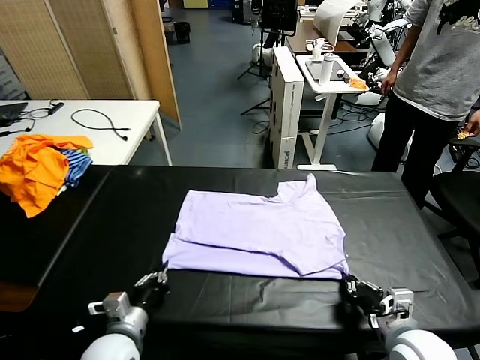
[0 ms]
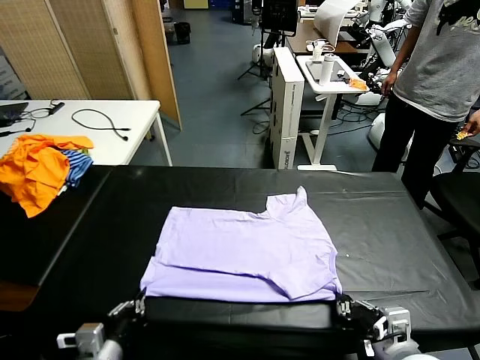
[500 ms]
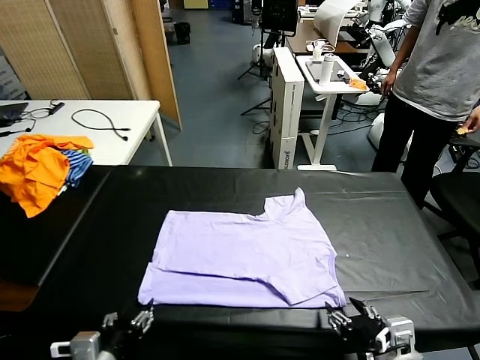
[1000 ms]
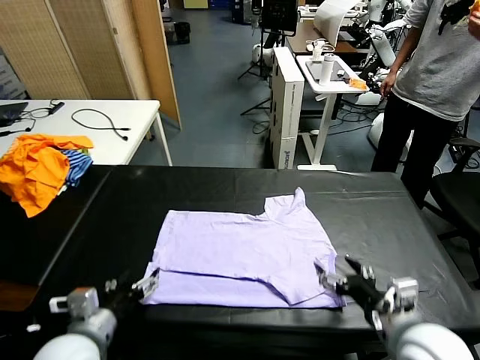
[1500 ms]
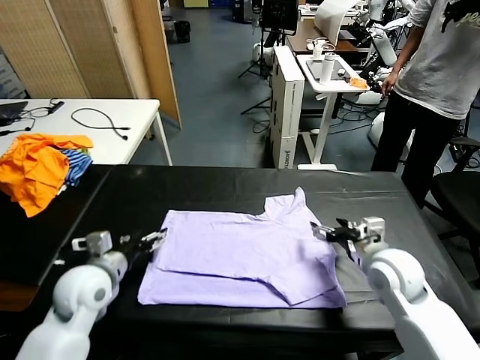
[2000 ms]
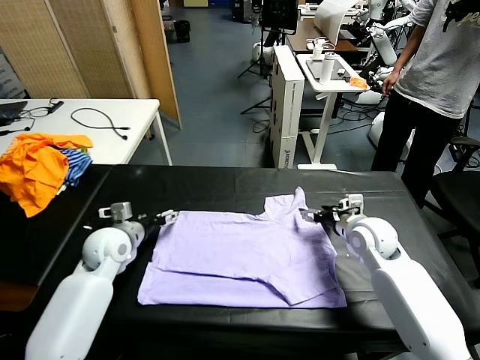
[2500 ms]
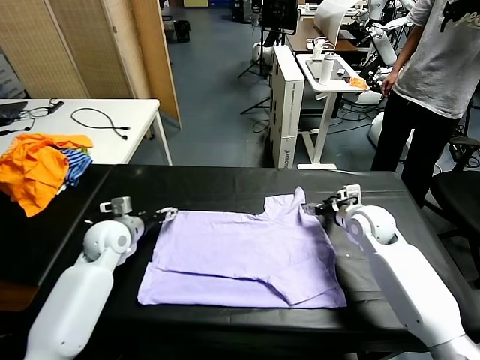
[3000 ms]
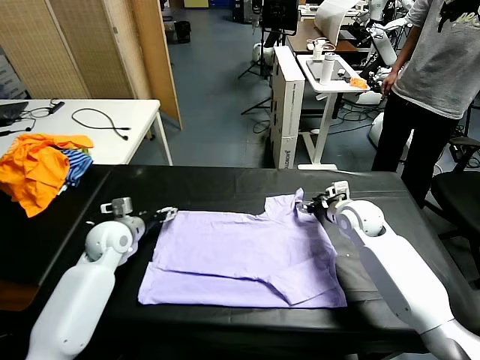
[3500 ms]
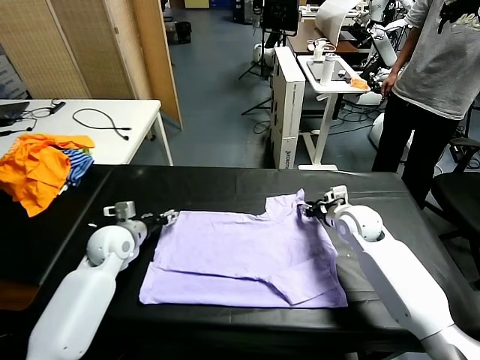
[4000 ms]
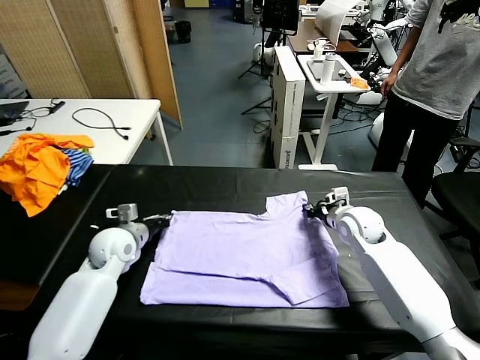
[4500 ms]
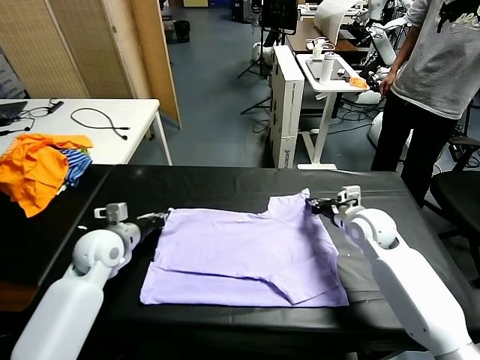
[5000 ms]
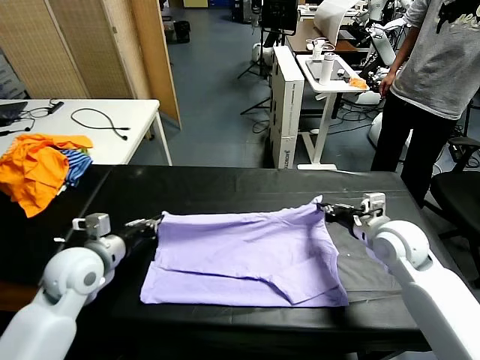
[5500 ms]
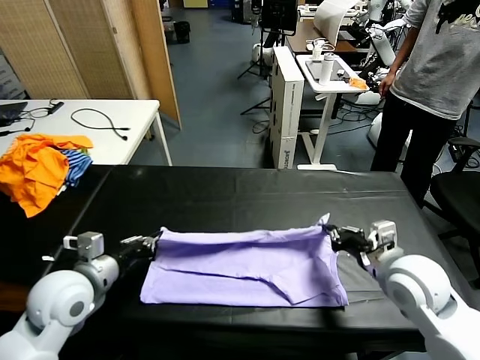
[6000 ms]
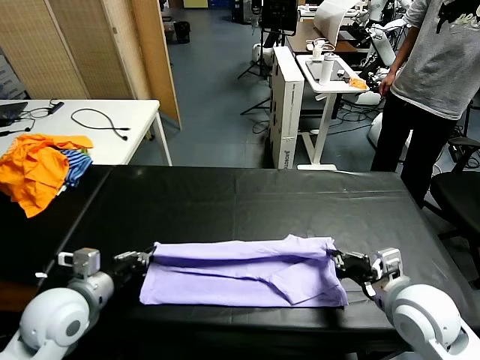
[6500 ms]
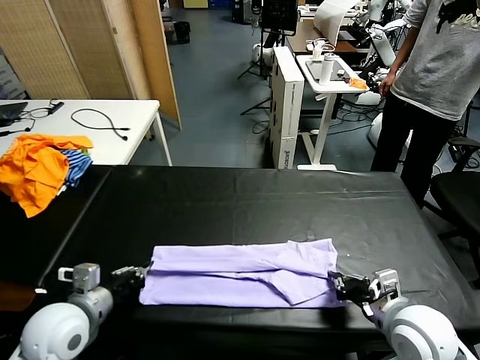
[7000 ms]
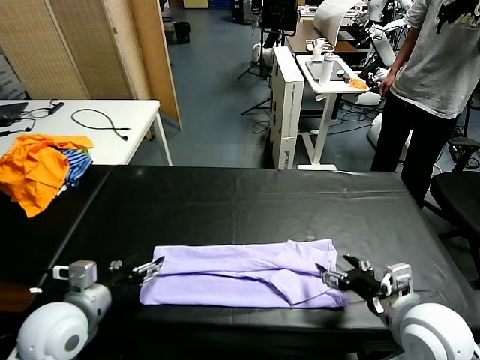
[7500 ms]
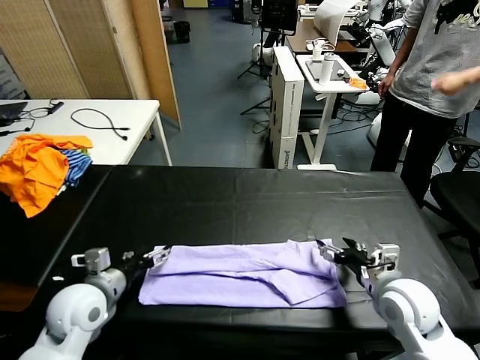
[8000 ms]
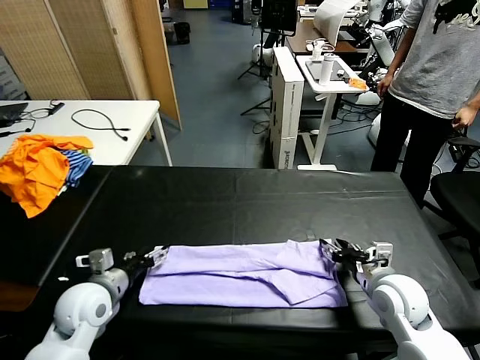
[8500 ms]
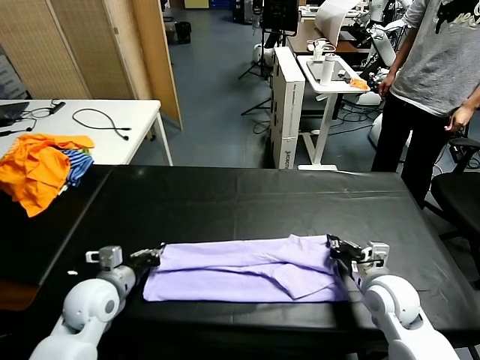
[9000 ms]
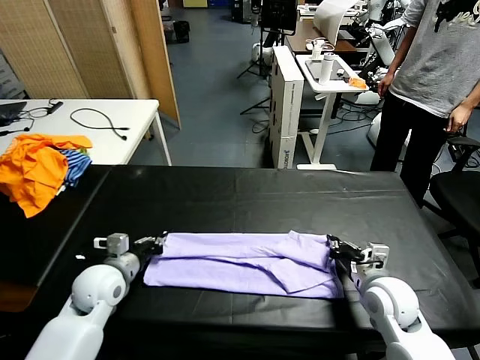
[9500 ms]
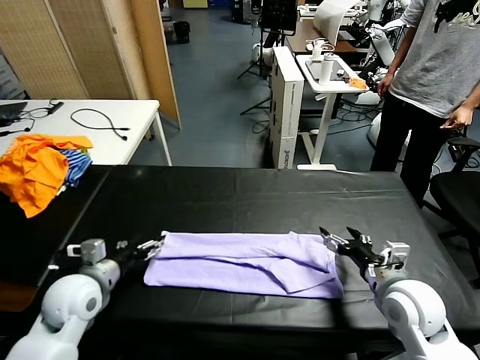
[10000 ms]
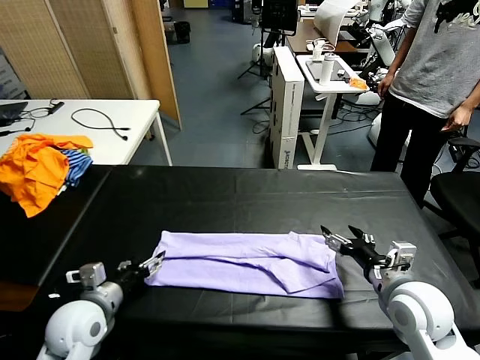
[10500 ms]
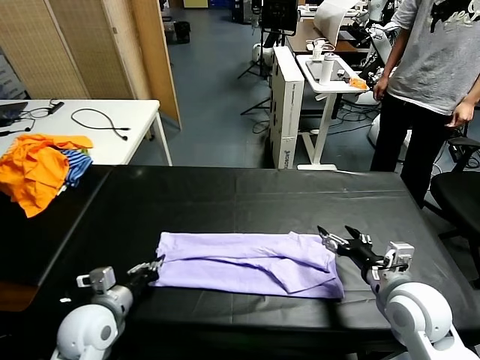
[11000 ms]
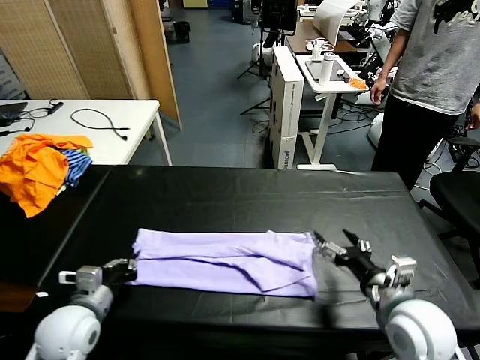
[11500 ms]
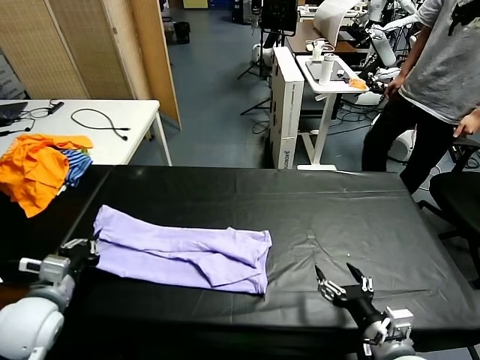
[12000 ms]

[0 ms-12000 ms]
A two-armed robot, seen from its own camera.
Task of the whole recording: fold and organize the clothes.
Step, 1500 ms to 4000 ms: use both grippers simultaneously to clamp the upper edge of the clothing fabric.
Step, 5000 ms to 10000 ms: use both grippers to drag the upper edge of the fabric backward and fold it over the lower edge.
Step, 10500 ms to 11000 ms: use the left gripper to clamp the left edge of the fabric.
0 ms to 2000 ms: The left gripper goes roughly 15 cm forward, upward and to the left, and opens its fingers, while the right gripper is displaced forward by some 20 cm, and opens its fingers.
2000 ms to 4000 ms: Both grippers move forward, about 10 cm. The right gripper closes its fingers, while the left gripper closes.
4000 ms to 6000 ms: The right gripper heads backward, covering some 20 cm. The left gripper moves backward and upward, roughly 15 cm, and closes.
6000 ms to 8000 ms: The grippers both shift downward by some 5 cm. The right gripper opens its fingers. Meanwhile the left gripper opens its fingers.
8000 ms to 10000 ms: The left gripper closes and opens again. The right gripper closes, then reopens.
10000 ms to 12000 ms: The right gripper shifts approximately 10 cm backward. Meanwhile the left gripper moves backward, roughly 5 cm, and closes.

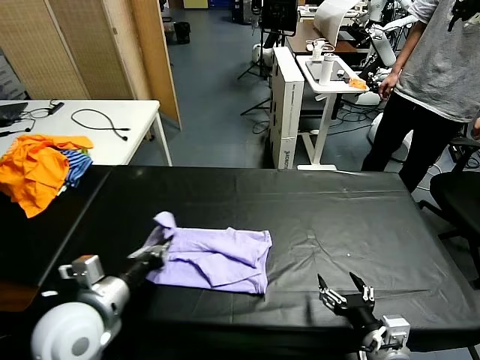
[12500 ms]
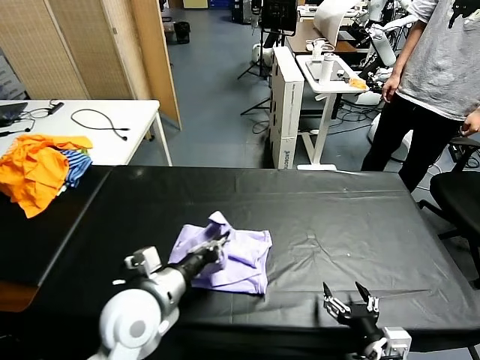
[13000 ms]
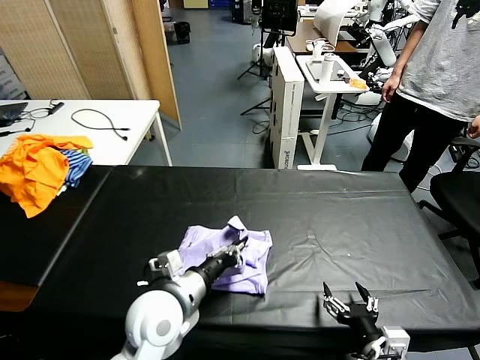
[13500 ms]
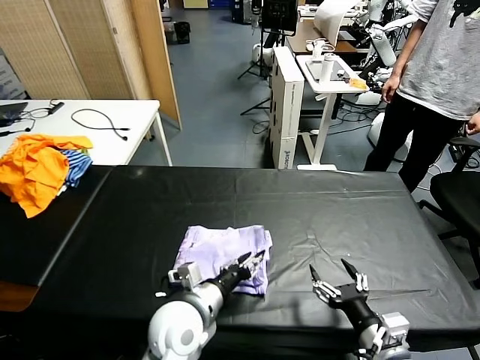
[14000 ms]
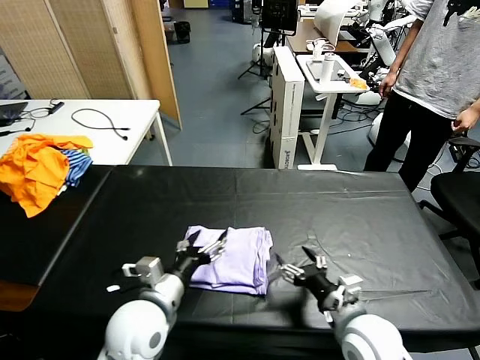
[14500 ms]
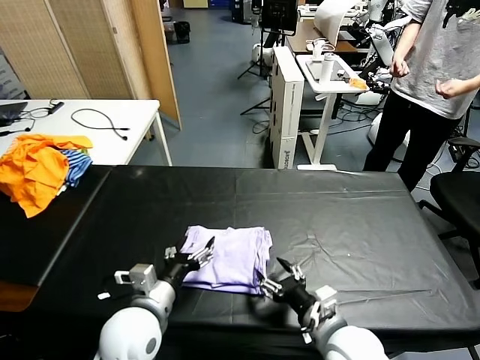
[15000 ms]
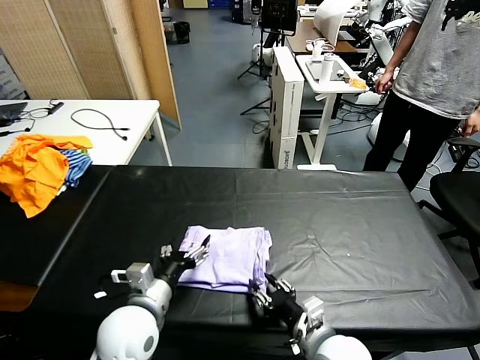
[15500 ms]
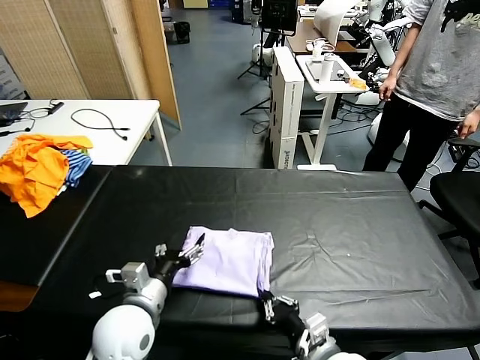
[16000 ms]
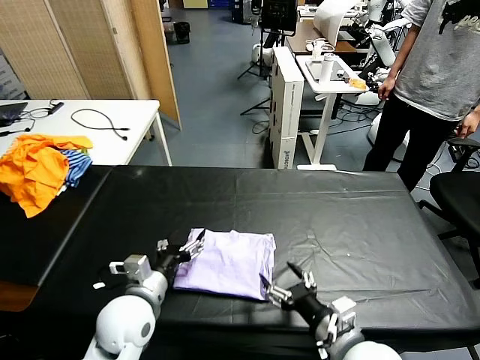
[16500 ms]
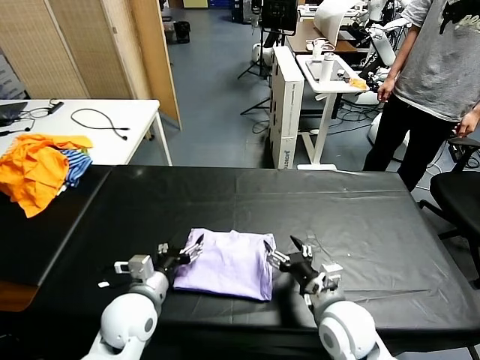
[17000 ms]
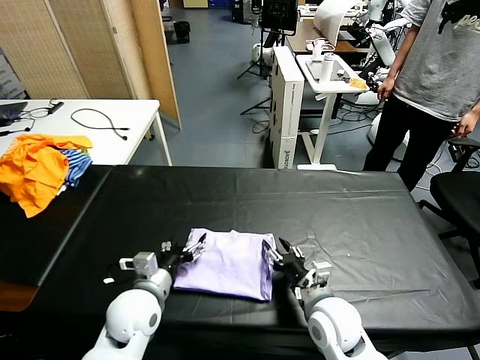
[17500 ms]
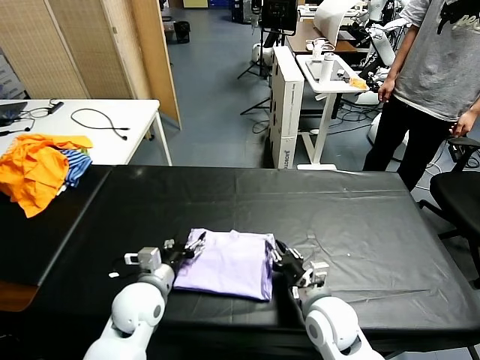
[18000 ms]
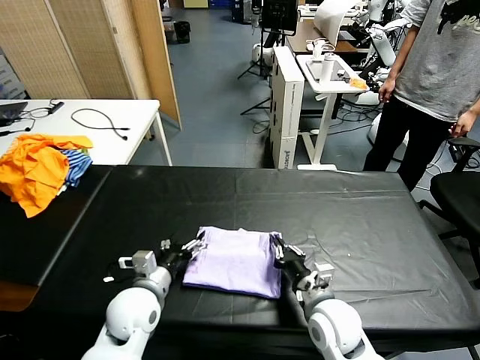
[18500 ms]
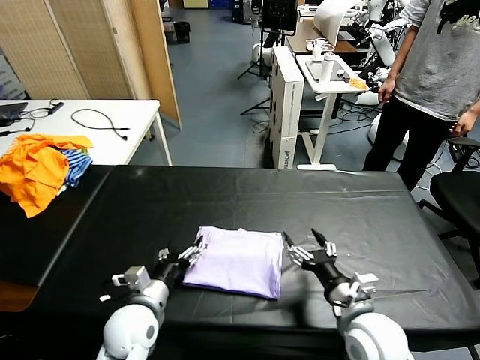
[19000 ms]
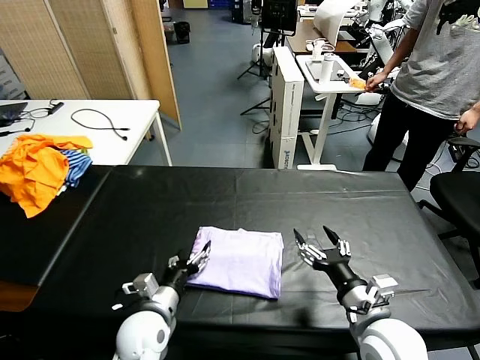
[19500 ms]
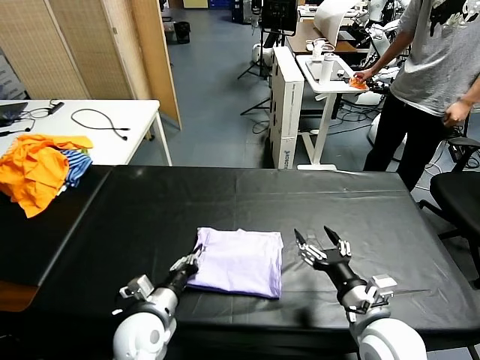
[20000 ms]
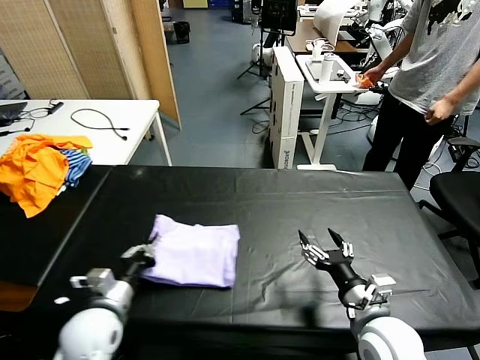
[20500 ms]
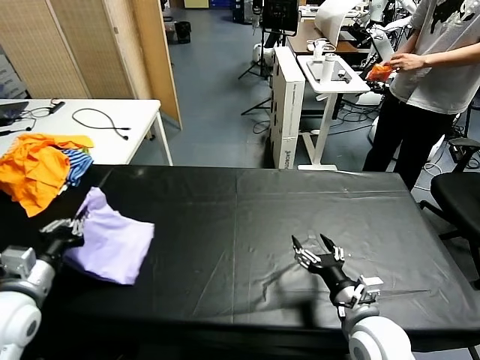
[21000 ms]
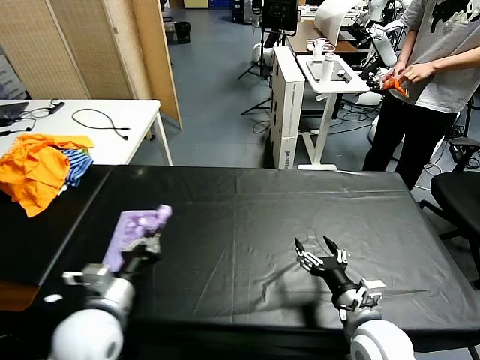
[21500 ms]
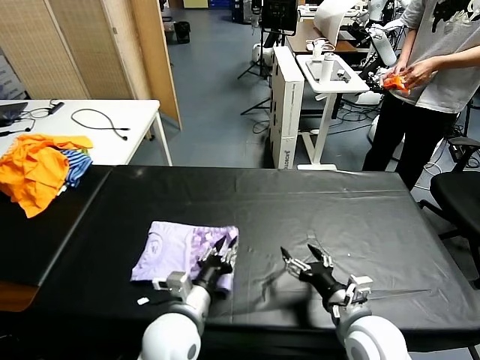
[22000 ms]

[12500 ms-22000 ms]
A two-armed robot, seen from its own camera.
Task of the whole recording: fold and organize the clothes.
Step, 12500 ms to 18500 ms: use the left gripper to drag the left edge of the fabric to the left and folds it over the right edge.
12500 ms to 14500 ms: The left gripper is displaced to the right and downward by some 10 cm, and opens up, while the right gripper heads forward, covering about 10 cm.
14500 ms to 16500 ms: The right gripper changes place by some 5 cm, and closes and opens again.
16500 ms to 18000 ms: The right gripper travels forward and downward by roughly 10 cm, and closes up; the left gripper moves roughly 5 cm.
18000 ms to 20000 ms: The right gripper shifts roughly 10 cm upward, to the right and backward, and opens up; the left gripper travels backward by approximately 5 cm, and closes.
20000 ms to 22000 ms: The left gripper is displaced upward by about 5 cm, and reaches some 20 cm to the left, then returns.

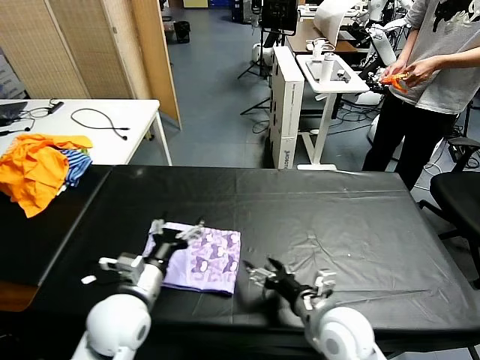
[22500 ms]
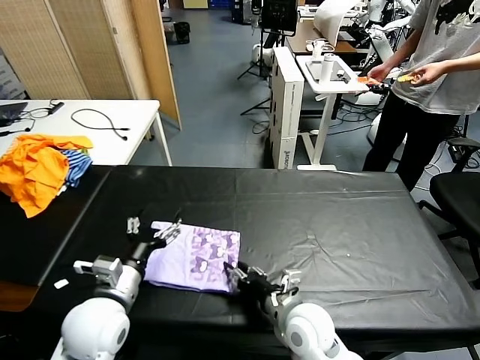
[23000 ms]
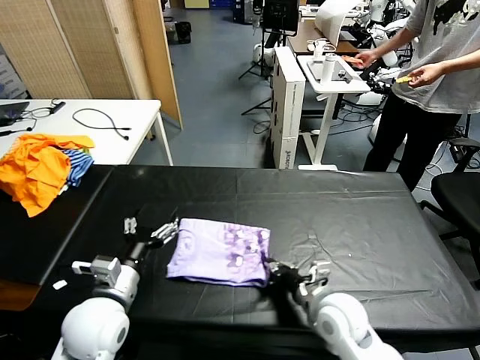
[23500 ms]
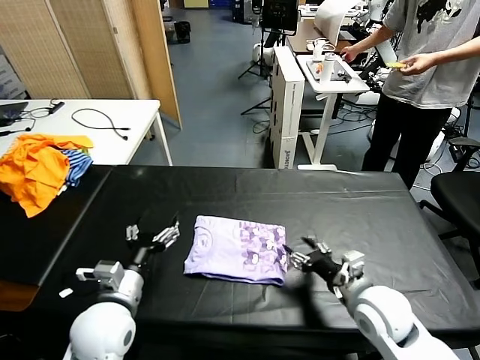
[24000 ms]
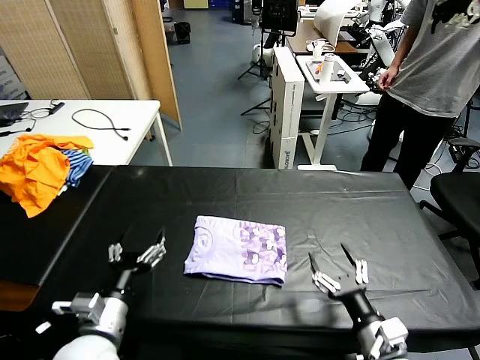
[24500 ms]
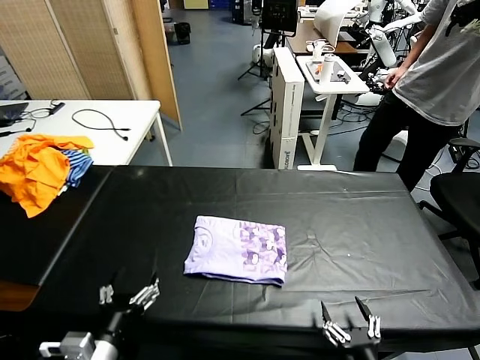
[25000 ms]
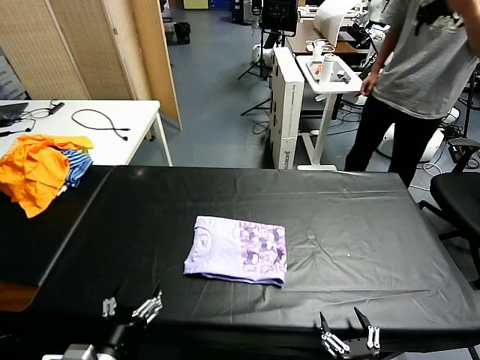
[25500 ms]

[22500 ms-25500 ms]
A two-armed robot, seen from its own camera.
Task of the whole recording: fold and organize the clothes.
Step, 22500 ms to 25500 ms: Drag the clothes to the center of the table.
22500 ms to 24000 ms: The right gripper goes about 5 cm to the right, and closes and opens again.
24000 ms to 25500 ms: The right gripper is displaced backward by some 20 cm. The left gripper travels backward by approximately 15 cm.
